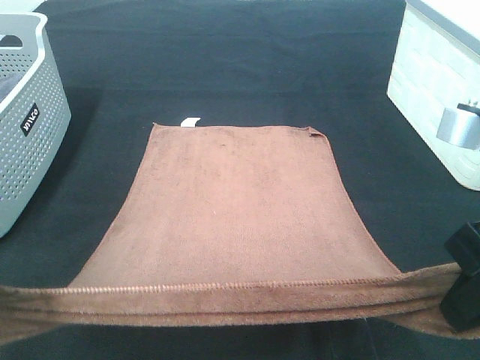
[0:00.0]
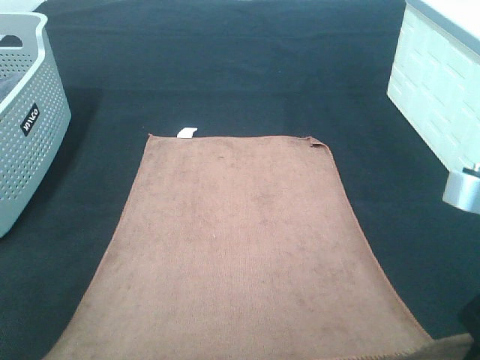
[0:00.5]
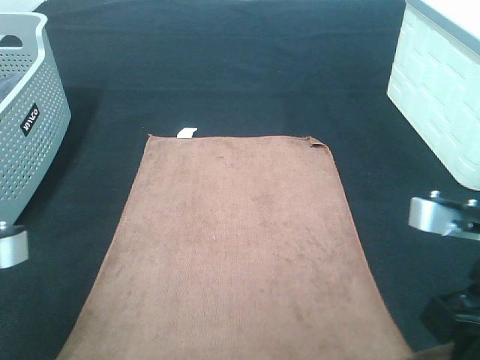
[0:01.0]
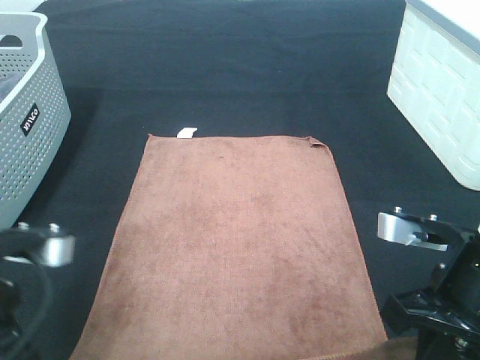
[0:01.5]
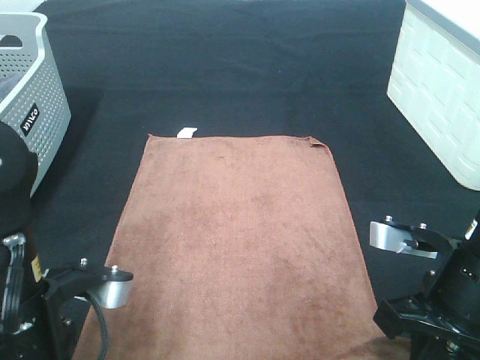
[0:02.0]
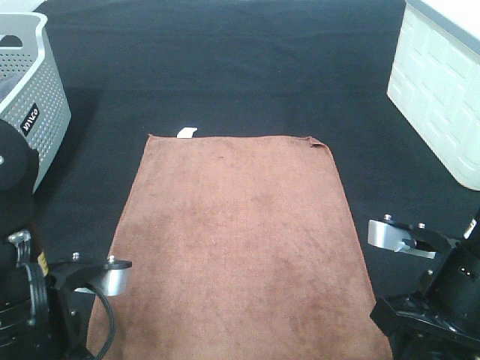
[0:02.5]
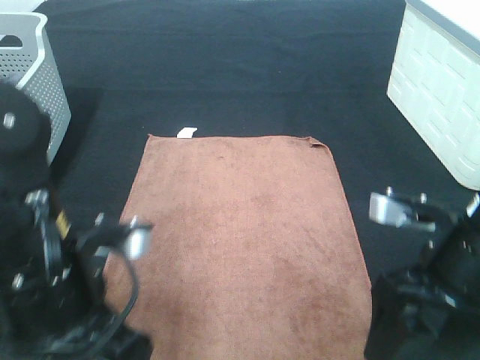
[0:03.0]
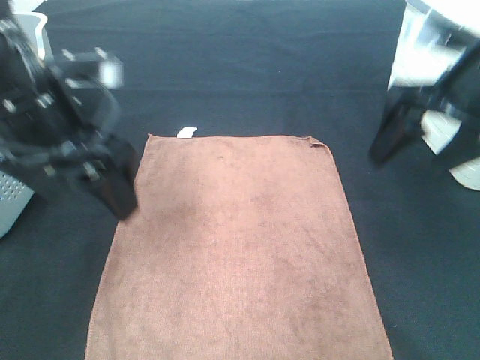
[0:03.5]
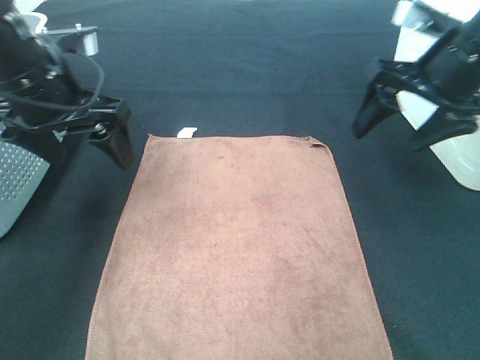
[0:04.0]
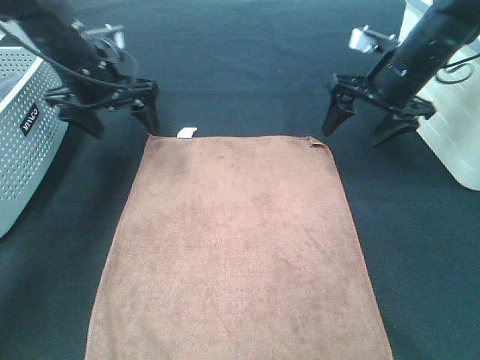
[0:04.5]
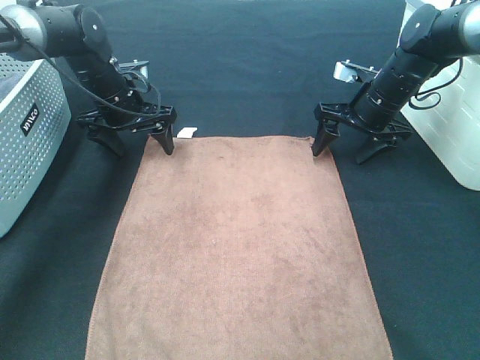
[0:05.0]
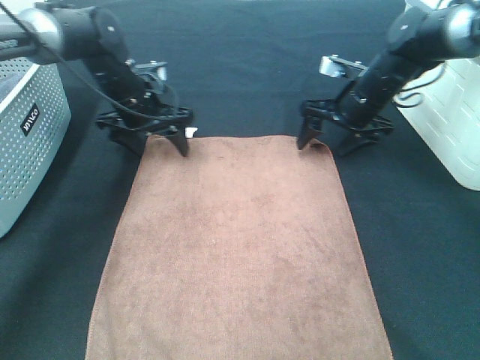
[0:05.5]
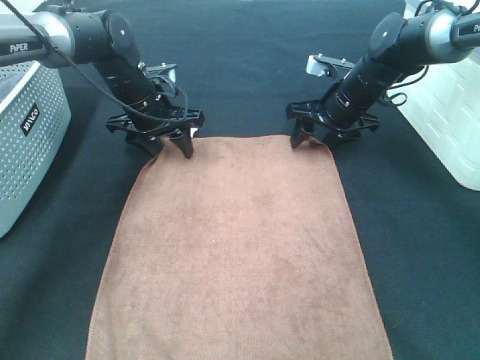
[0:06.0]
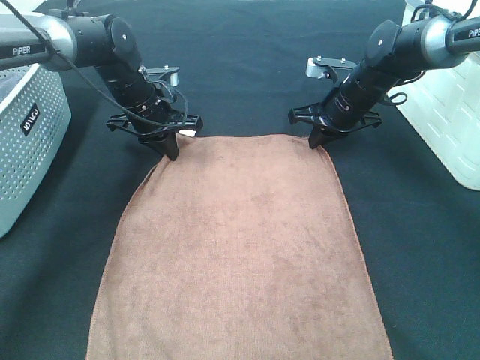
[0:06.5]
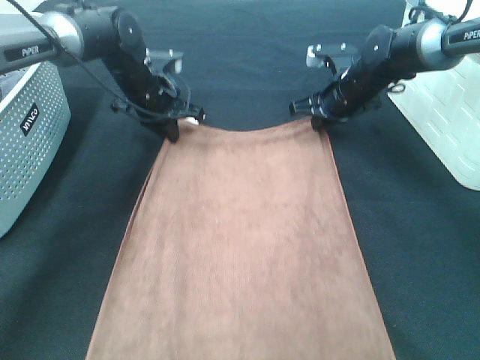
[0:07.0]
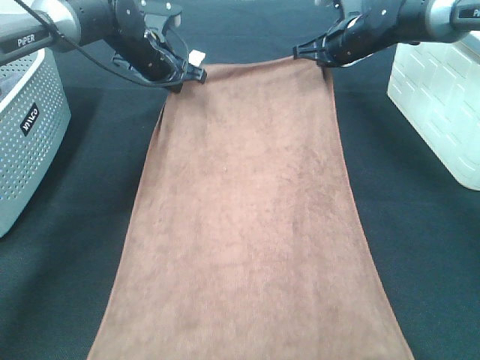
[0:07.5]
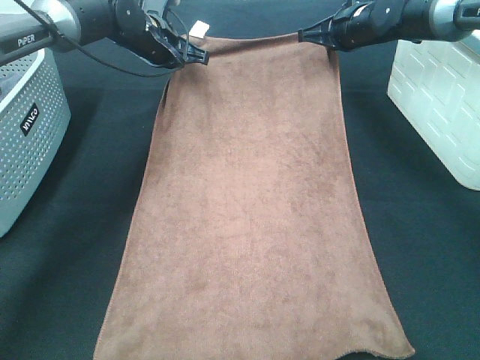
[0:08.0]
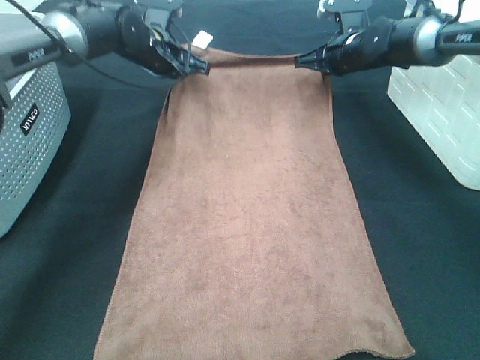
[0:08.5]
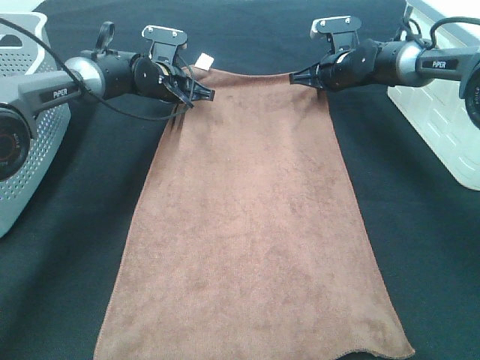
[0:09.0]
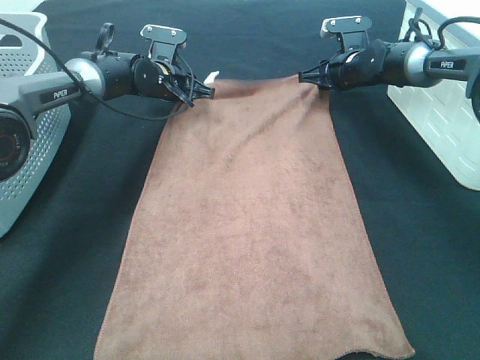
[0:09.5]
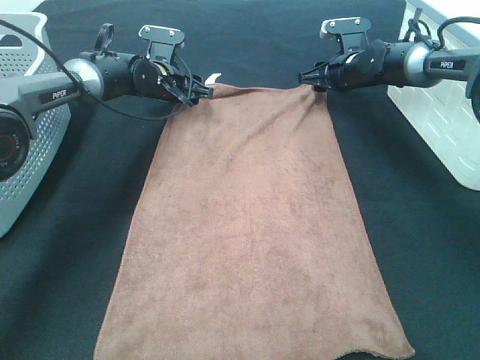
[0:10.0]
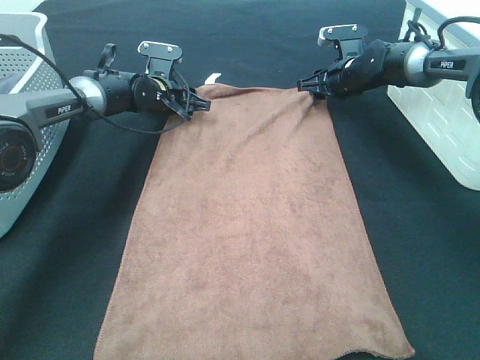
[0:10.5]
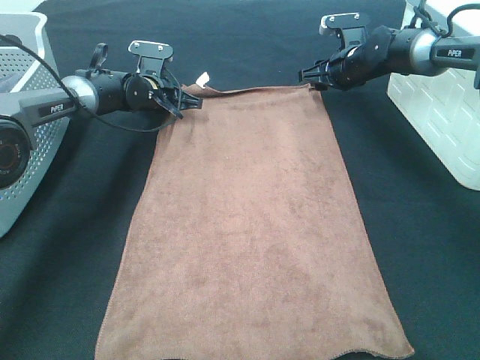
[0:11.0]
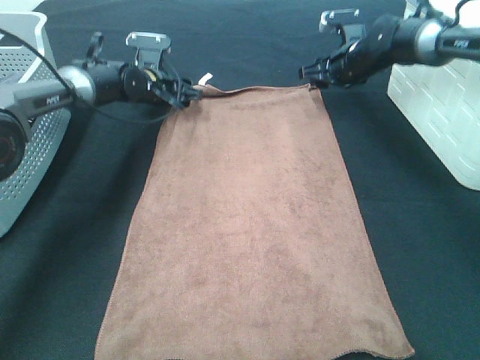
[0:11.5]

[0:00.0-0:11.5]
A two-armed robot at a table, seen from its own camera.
Task of the whole recording: Remove the towel and place it.
Step, 0:00.0 to 0:05.0: Right hand:adjust the brown towel.
Step, 0:00.0 to 0:05.5: Left hand:adjust the brown towel.
0:00.0 to 0:02.0: The right gripper heads downward, covering approximately 10 cm. The left gripper goes roughly 15 cm downward and to the right.
0:02.0 to 0:04.0: The left gripper is displaced forward by approximately 20 cm, and opens up. The right gripper moves forward and upward, about 20 cm, and opens up.
0:04.0 to 0:06.0: The right gripper is displaced downward and forward by roughly 20 cm; the left gripper travels forward, downward and to the right by about 20 cm, and closes.
0:06.0 to 0:07.5: The right gripper is displaced upward and forward by about 10 cm, and closes up. Meanwhile the left gripper moves forward and upward, approximately 10 cm, and closes.
0:07.5 to 0:09.5: The two grippers go roughly 5 cm downward. The right gripper opens its fingers; the left gripper opens up.
0:09.5 to 0:11.5: The left gripper closes and opens again.

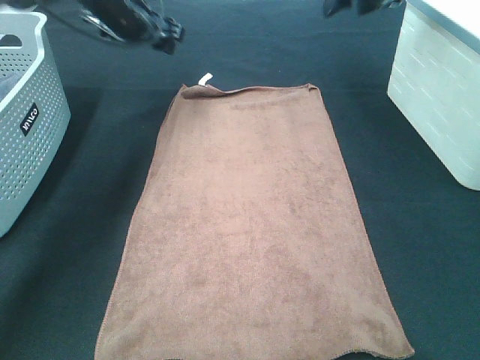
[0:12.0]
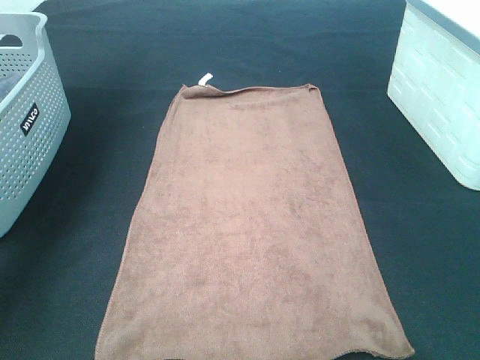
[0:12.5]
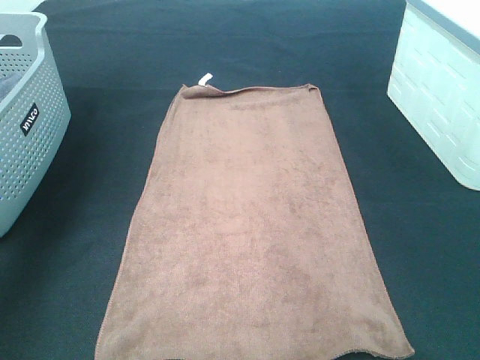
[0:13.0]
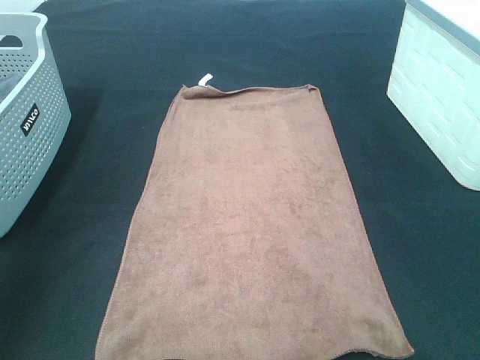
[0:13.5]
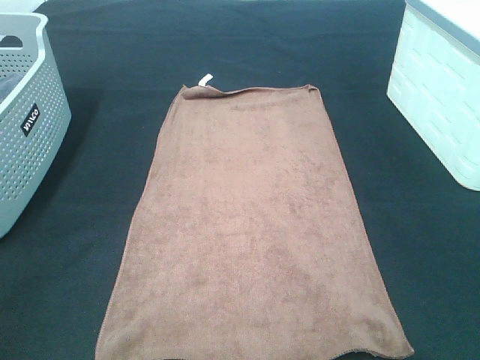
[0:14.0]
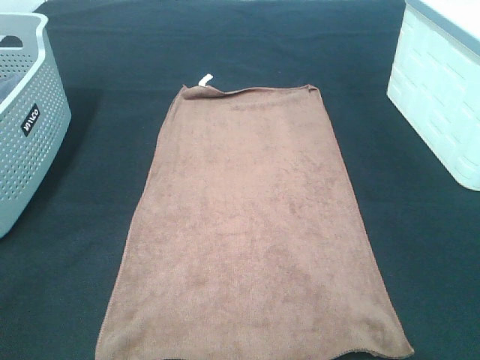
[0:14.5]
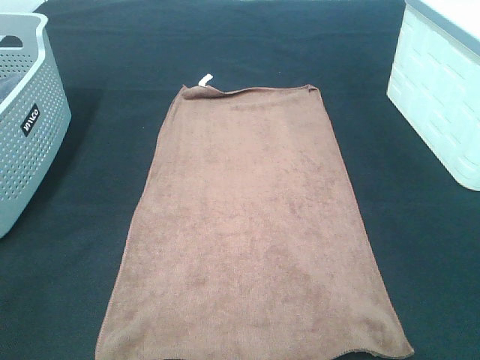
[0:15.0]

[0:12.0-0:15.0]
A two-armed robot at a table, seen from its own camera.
Task of the whole recording: Remove the towel and place it.
0:12.0 to 0:13.5: Both grippers move backward, roughly 40 cm.

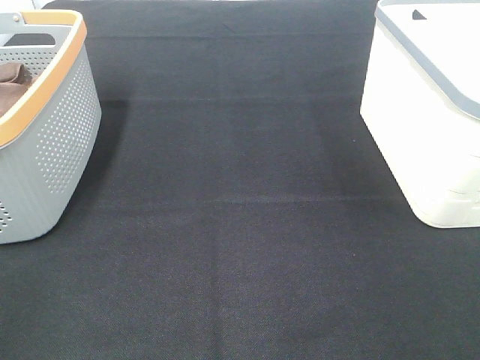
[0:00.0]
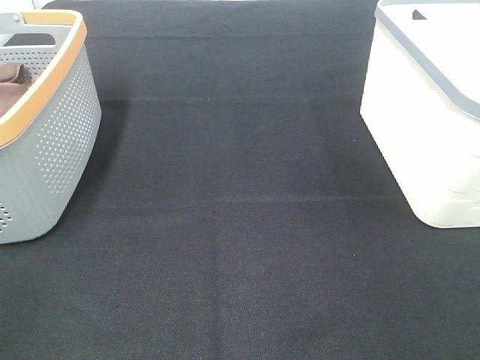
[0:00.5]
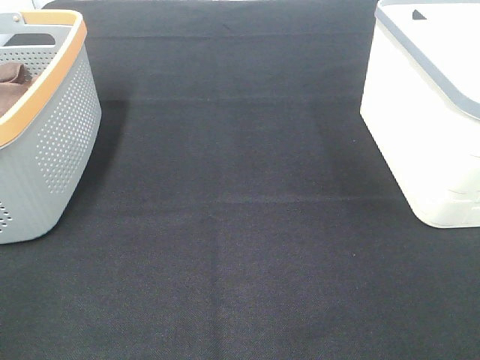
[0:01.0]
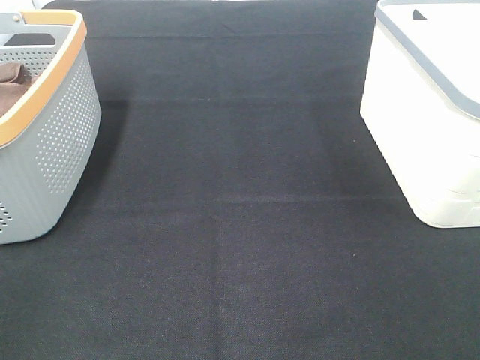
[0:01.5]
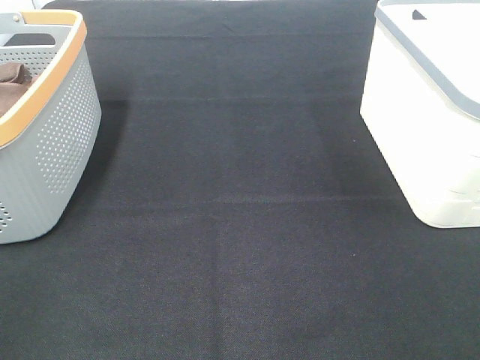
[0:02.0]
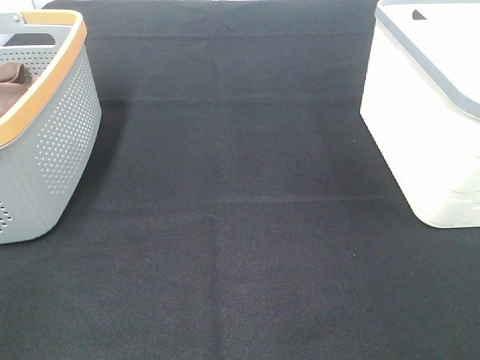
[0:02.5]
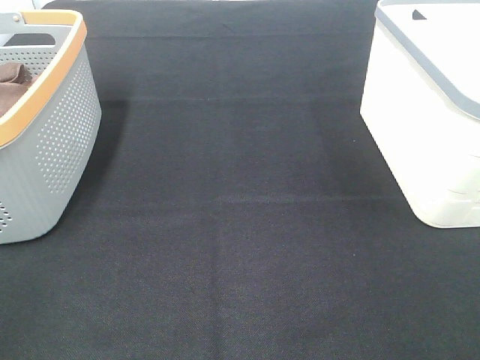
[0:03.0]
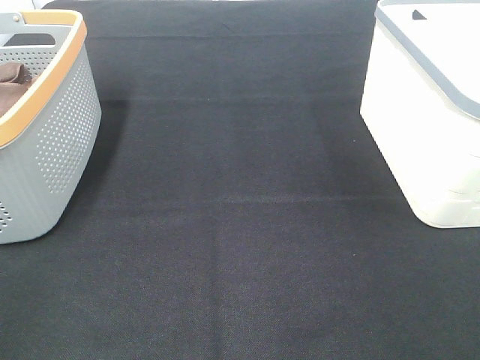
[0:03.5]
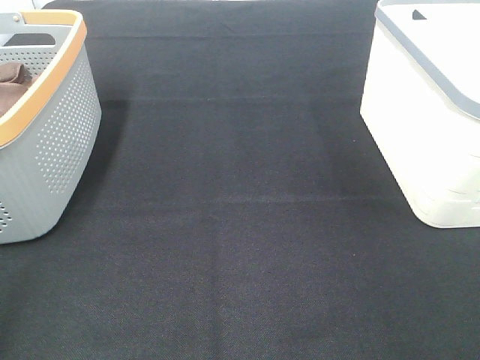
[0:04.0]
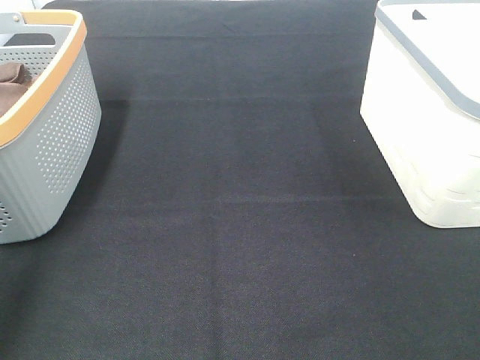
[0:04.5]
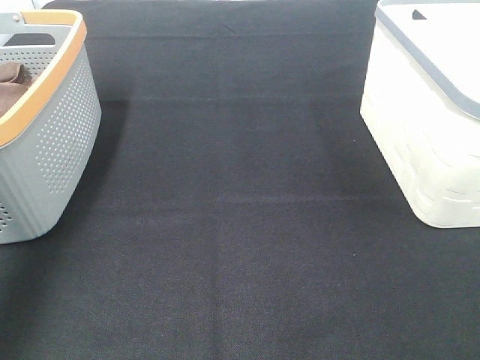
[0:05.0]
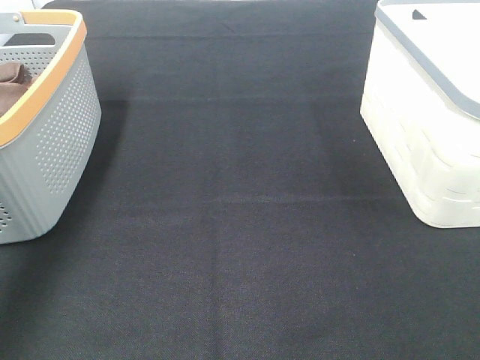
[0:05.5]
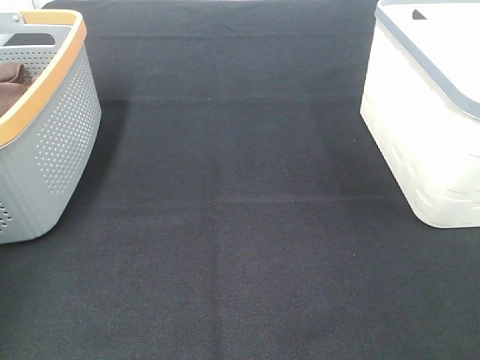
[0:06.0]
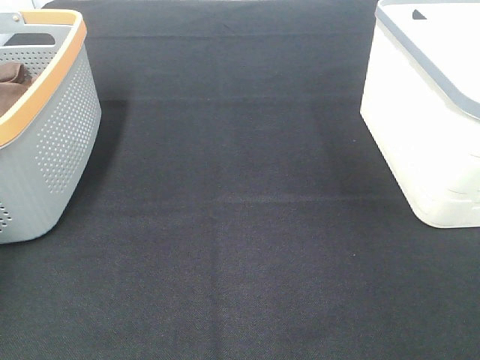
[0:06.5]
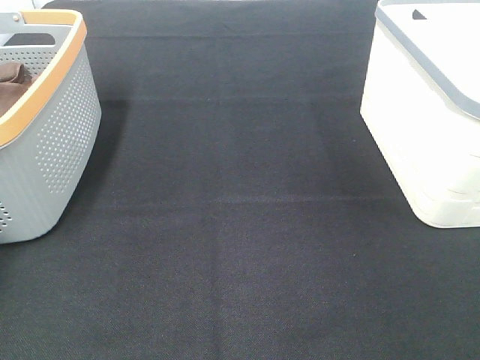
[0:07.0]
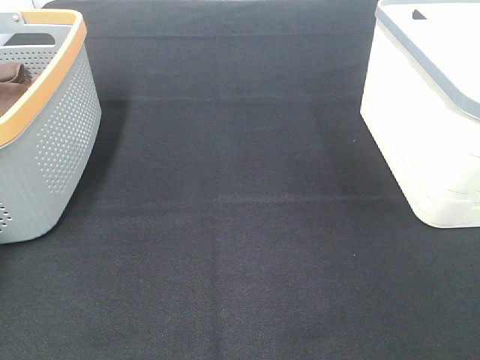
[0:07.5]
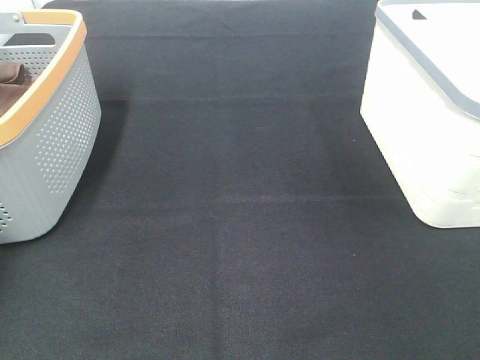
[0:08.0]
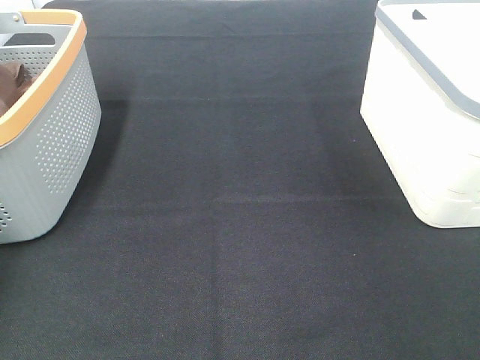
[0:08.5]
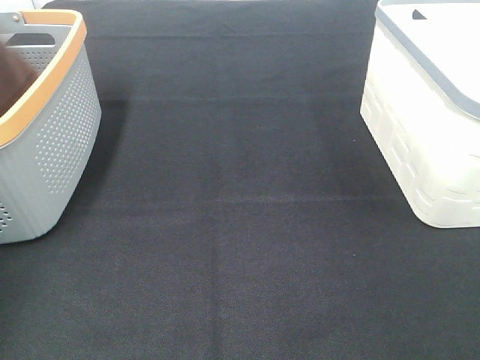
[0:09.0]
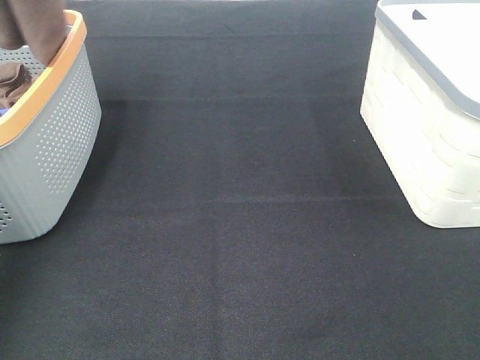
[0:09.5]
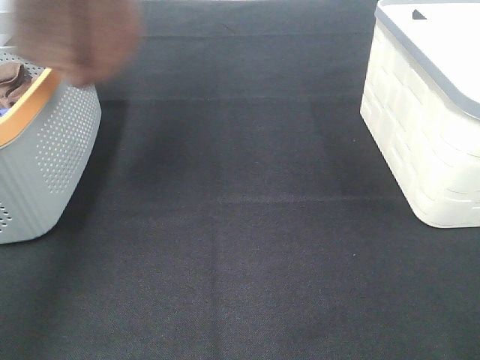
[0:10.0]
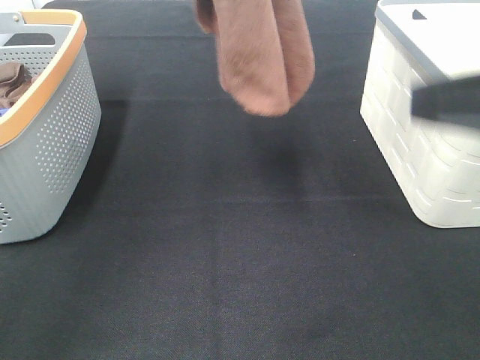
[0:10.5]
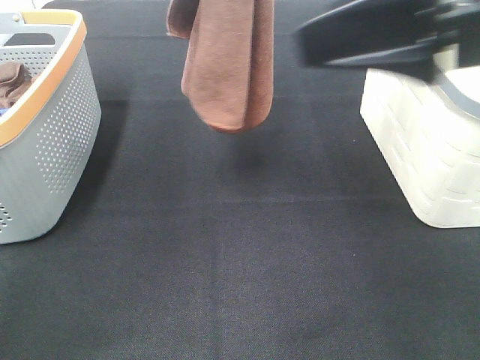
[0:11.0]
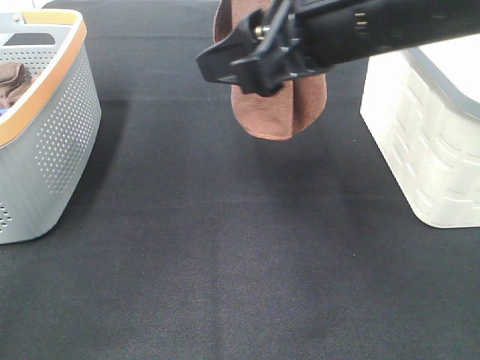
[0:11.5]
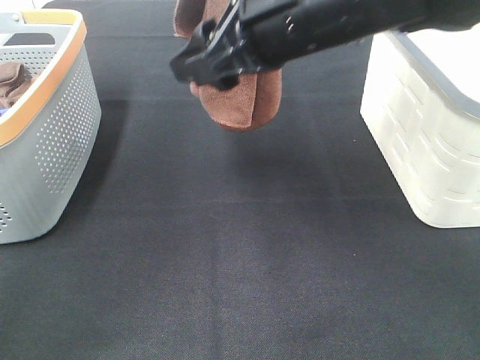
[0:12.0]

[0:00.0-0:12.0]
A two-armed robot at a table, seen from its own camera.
Task of the whole recording: Remove the towel and place it.
0:00.0 to 0:02.0: The two grippers keep their place.
0:08.0 to 0:10.0: The left gripper heads upward, to the right and backward, covering roughly 40 cm; the right gripper heads forward, covering approximately 5 cm.
0:10.0 to 0:12.0: The right gripper shifts approximately 30 cm forward and to the left; the left gripper goes roughly 10 cm to the right and downward.
